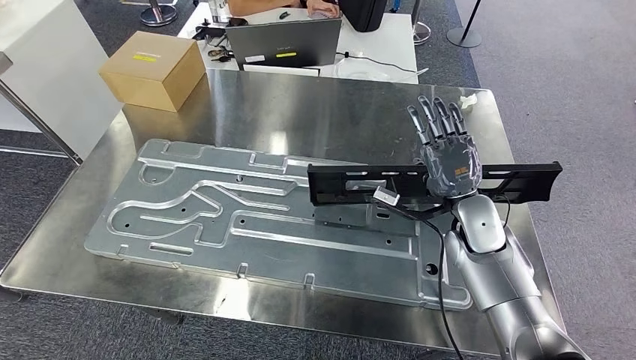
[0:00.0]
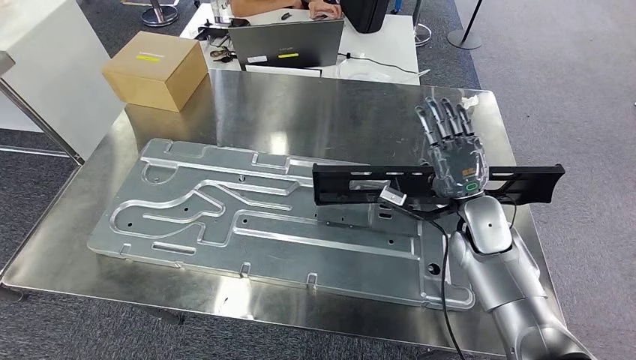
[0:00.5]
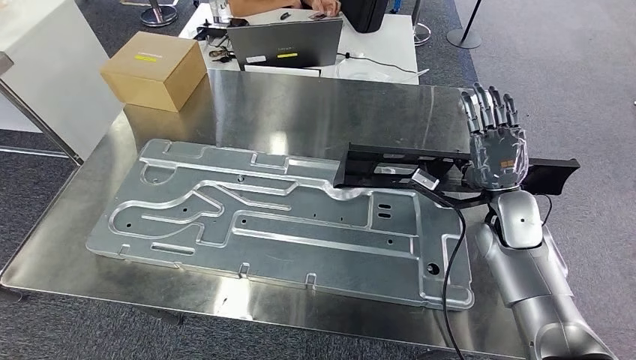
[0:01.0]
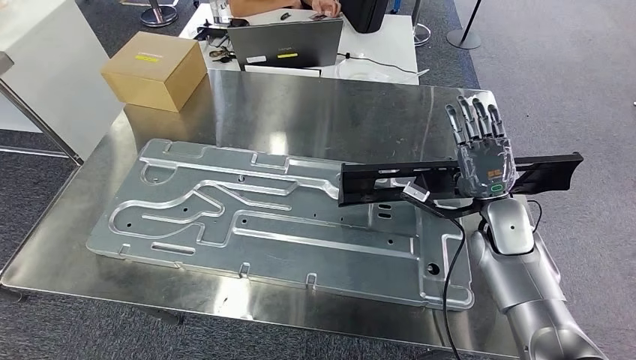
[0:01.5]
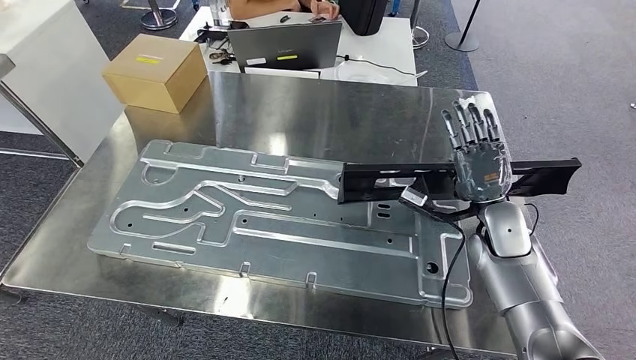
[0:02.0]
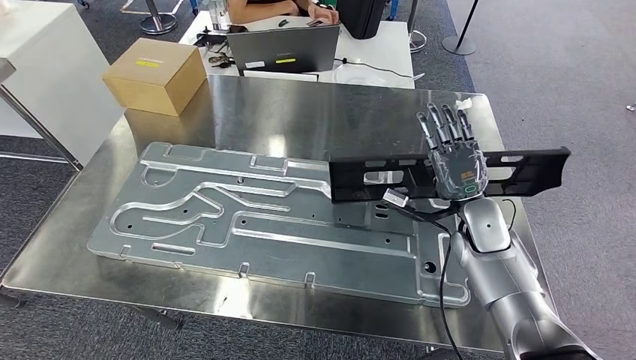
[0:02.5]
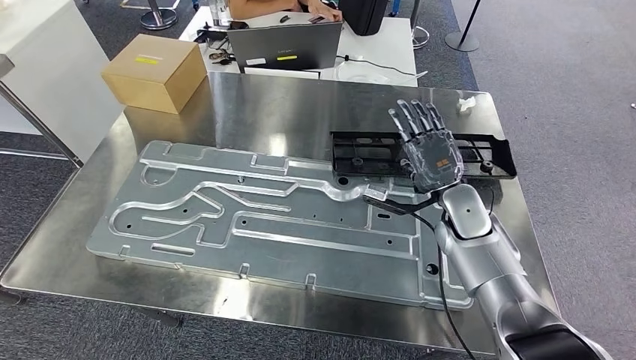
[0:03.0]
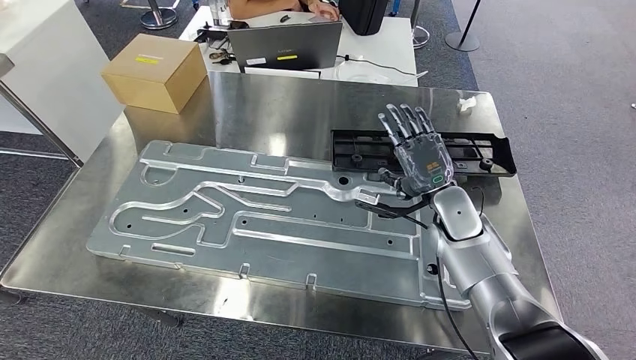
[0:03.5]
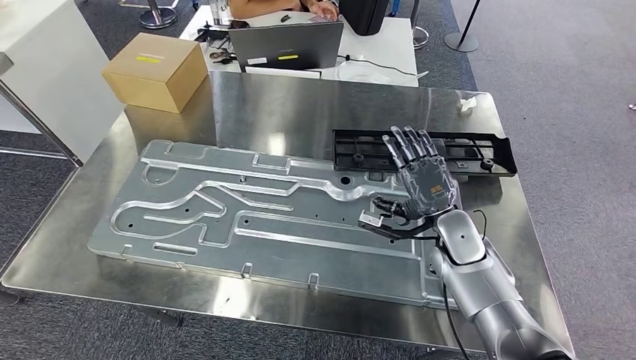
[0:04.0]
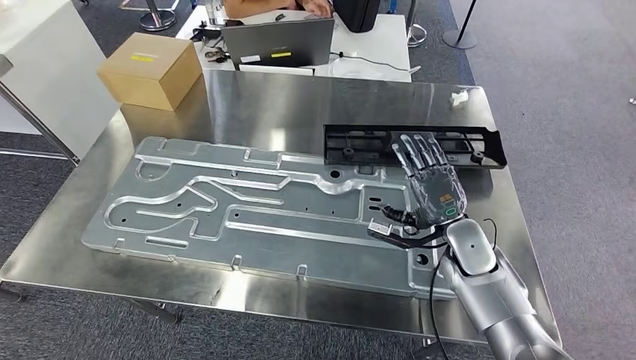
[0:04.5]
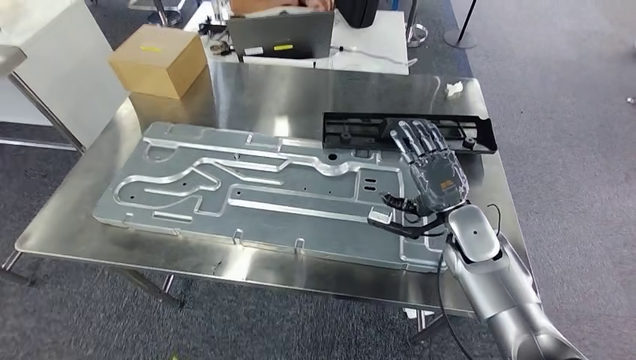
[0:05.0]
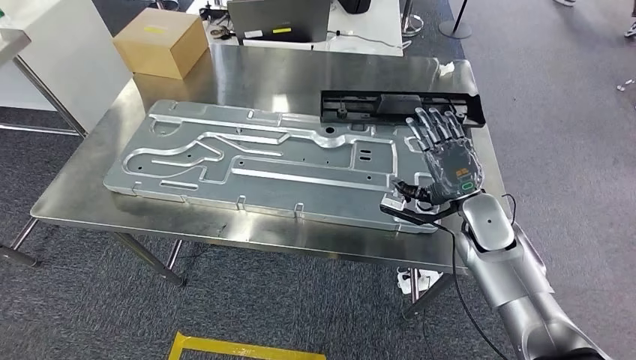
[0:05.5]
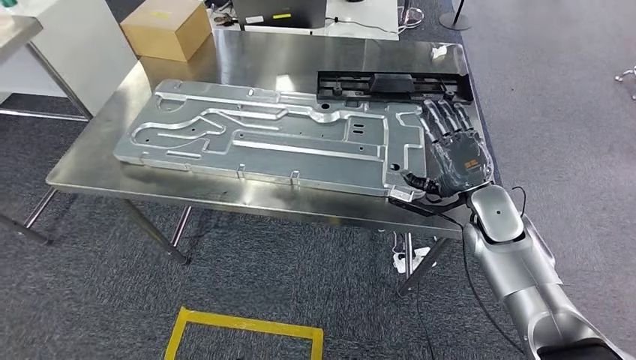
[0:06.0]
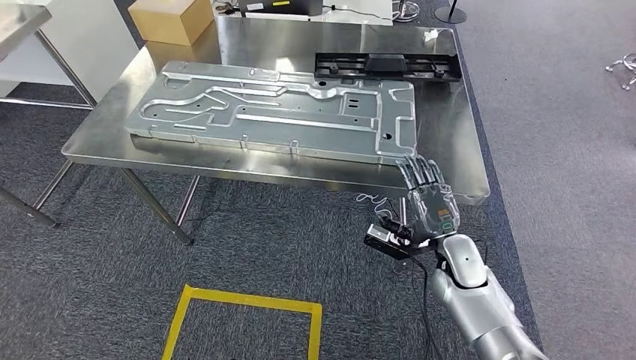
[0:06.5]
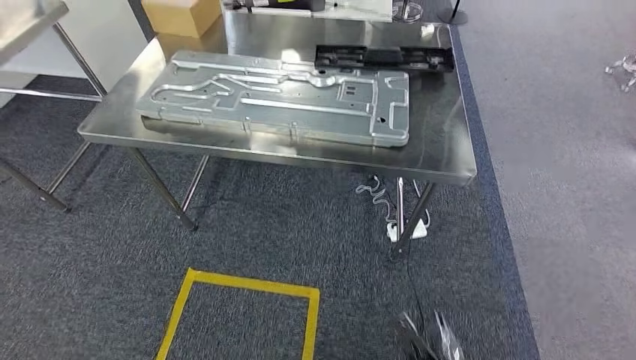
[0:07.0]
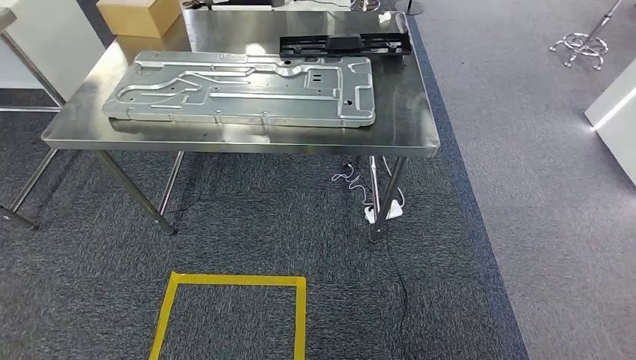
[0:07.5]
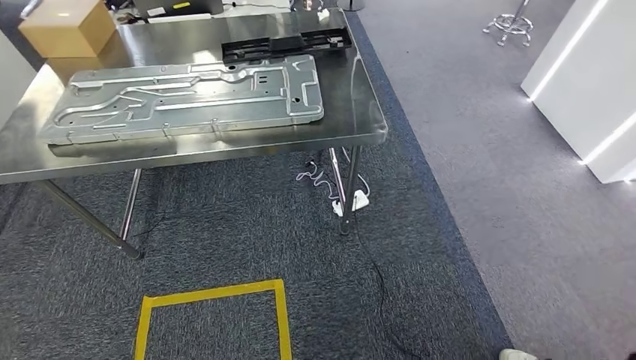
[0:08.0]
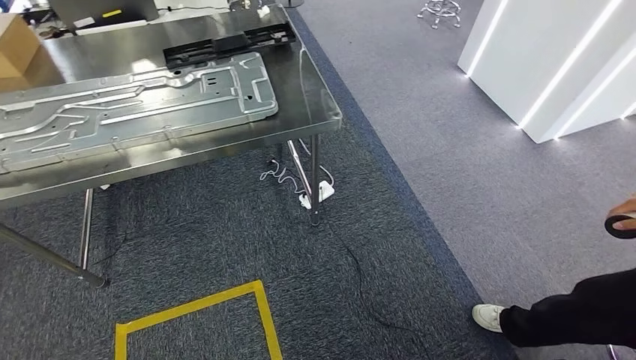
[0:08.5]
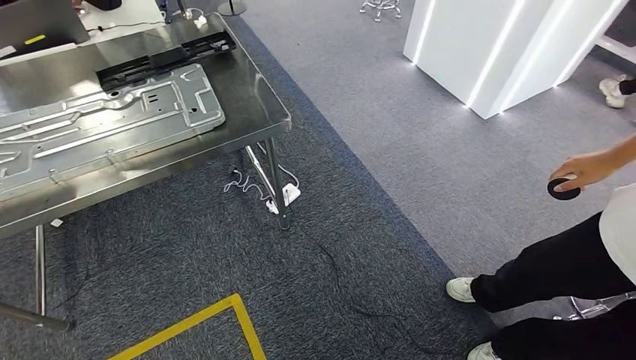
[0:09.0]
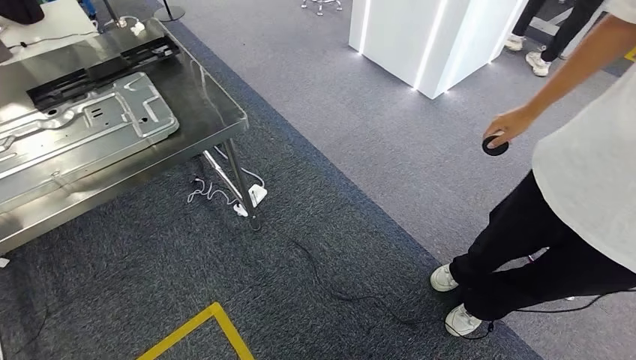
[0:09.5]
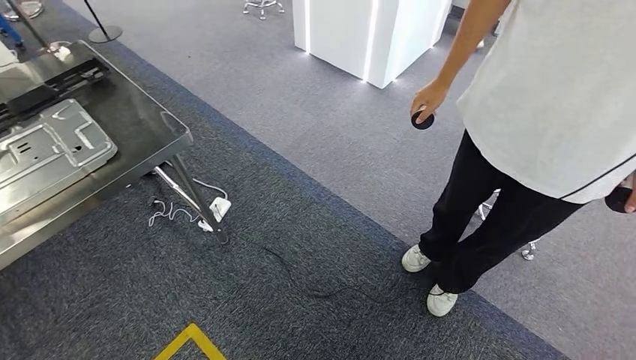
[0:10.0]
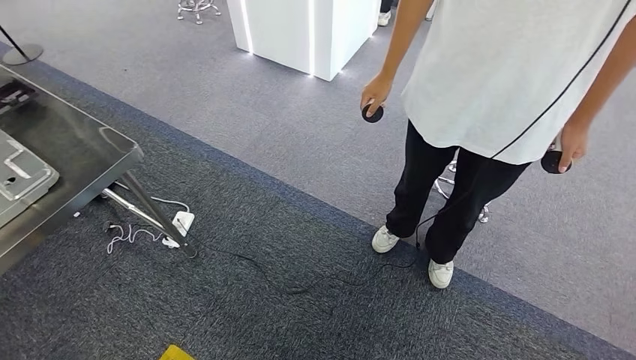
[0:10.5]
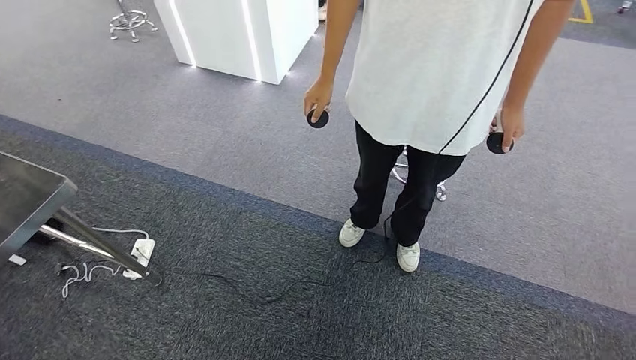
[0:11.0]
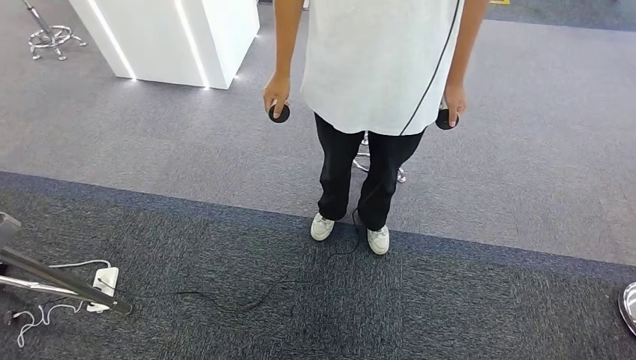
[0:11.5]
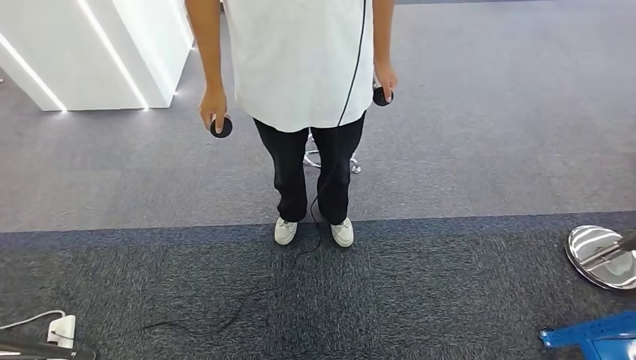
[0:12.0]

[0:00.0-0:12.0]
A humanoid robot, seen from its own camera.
Step, 0:00.0 to 0:05.0: Insert the large material into the corresponding slot on the workbench.
0:00.0 to 0:02.0: The right hand shifts by approximately 5 cm.
0:02.0 to 0:04.0: The right hand moves to the left, roughly 5 cm.

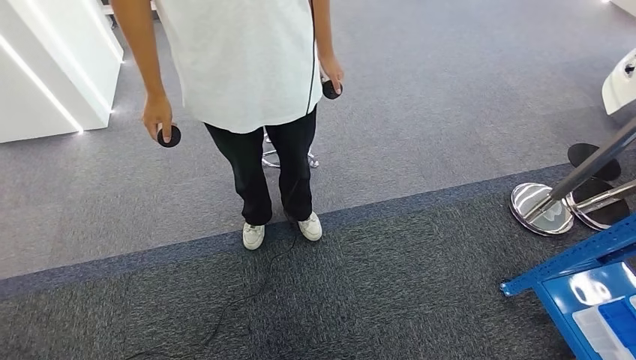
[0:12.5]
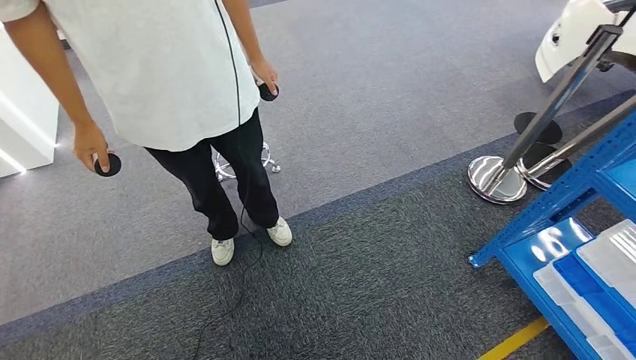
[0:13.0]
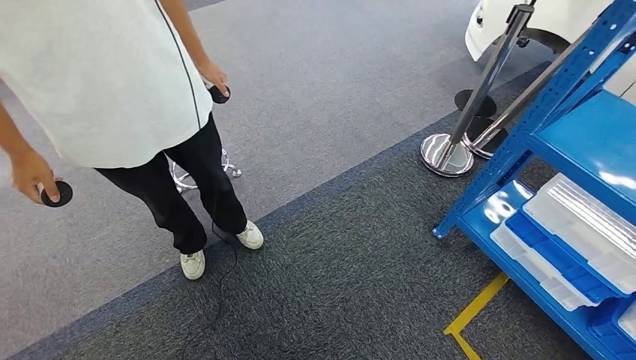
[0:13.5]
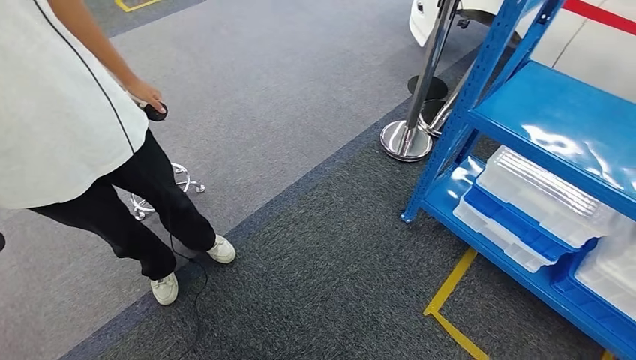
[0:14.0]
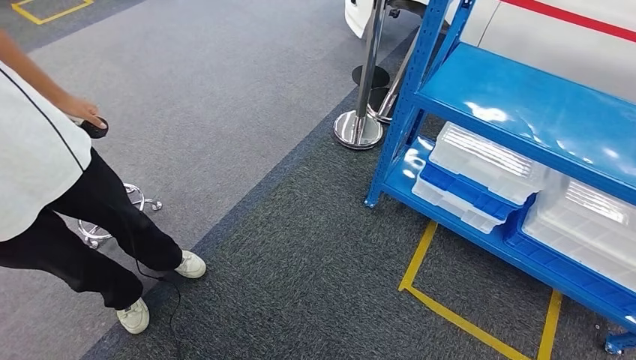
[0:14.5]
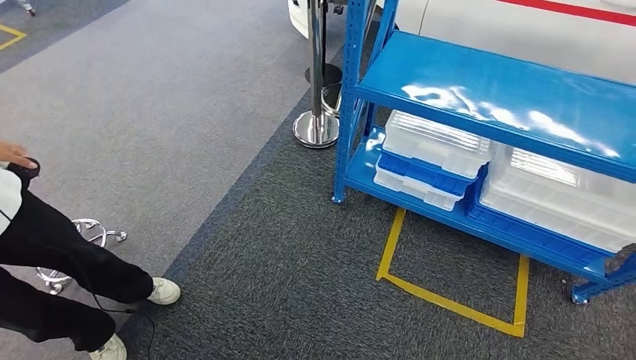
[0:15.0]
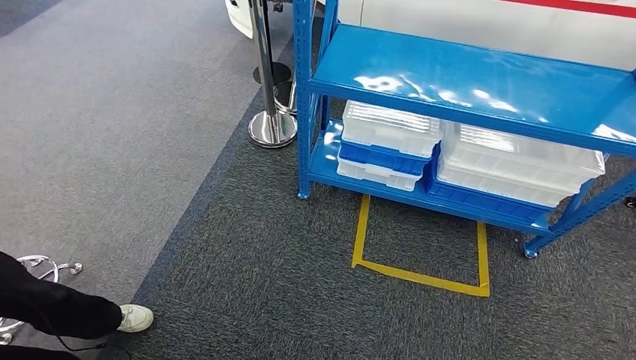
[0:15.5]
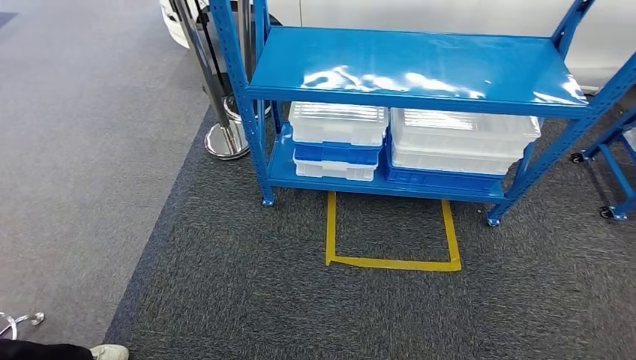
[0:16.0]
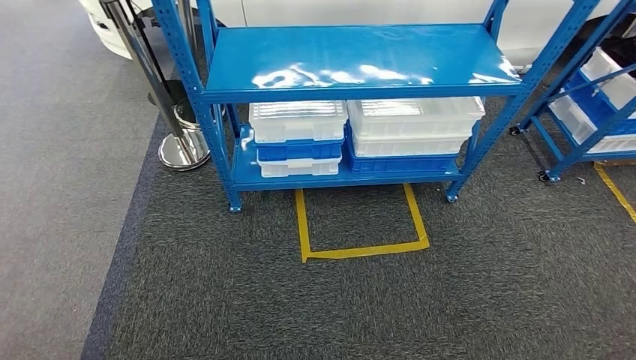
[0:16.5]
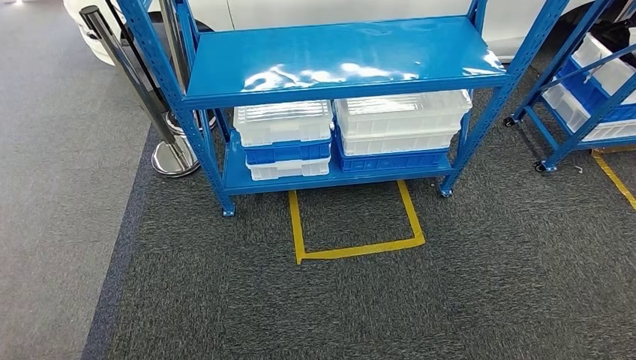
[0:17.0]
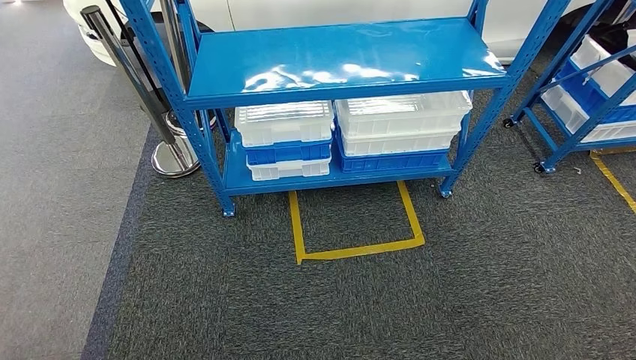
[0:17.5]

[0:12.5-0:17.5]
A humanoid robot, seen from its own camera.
Step, 0:12.5 to 0:15.0: Return to the initial position at the shelf.
